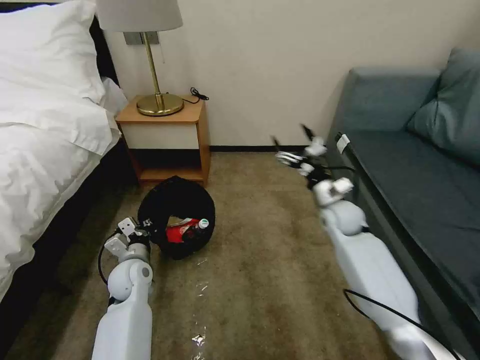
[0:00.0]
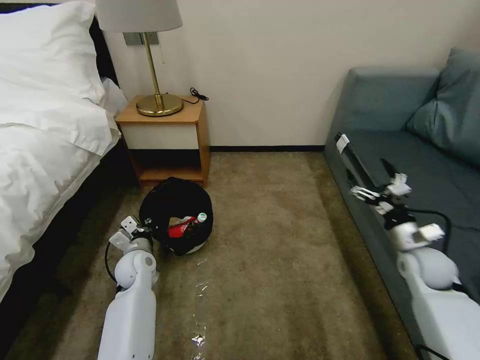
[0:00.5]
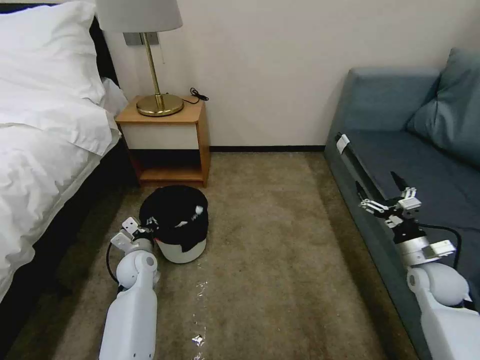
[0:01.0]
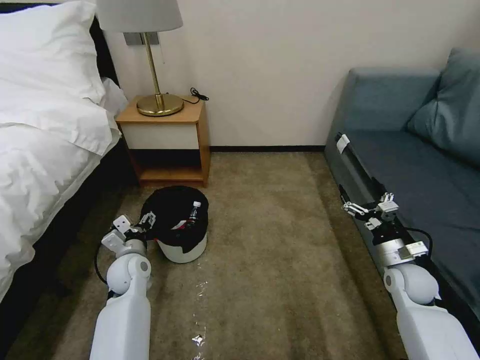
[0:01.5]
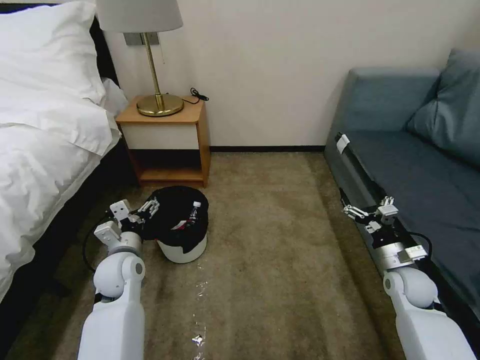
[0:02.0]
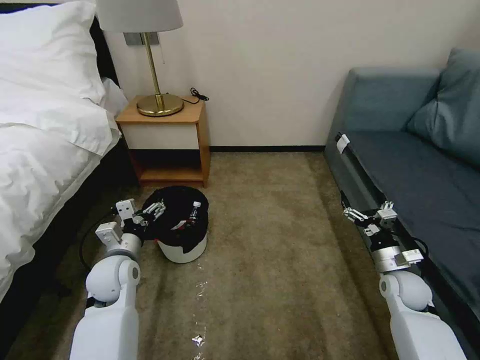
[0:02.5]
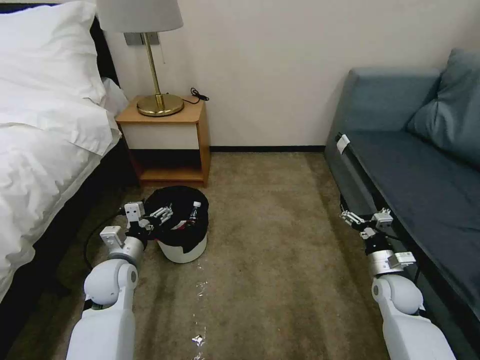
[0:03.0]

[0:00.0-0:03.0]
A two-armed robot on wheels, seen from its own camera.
Task of the whole recording: Pick up the trash bin, then pick up the garbage on the floor and place it into the trash bin.
0:00.0 to 0:01.5: The right gripper is displaced to the right, backward and downward by approximately 20 cm. The left gripper opens its fingers.
0:01.5 to 0:03.0: The left gripper shifts by approximately 5 cm.

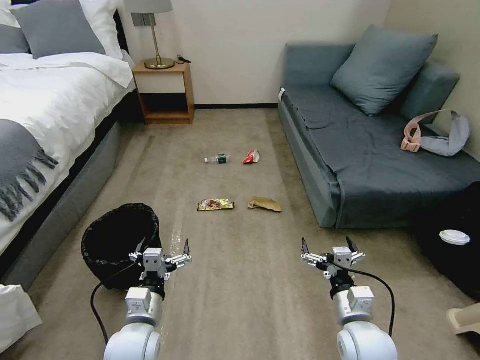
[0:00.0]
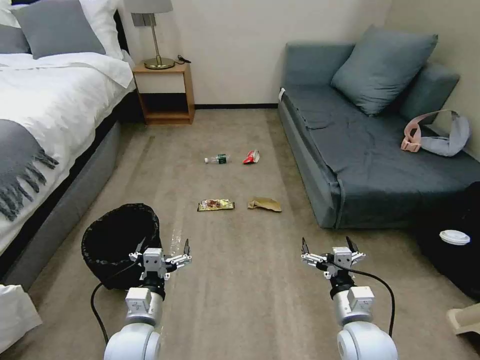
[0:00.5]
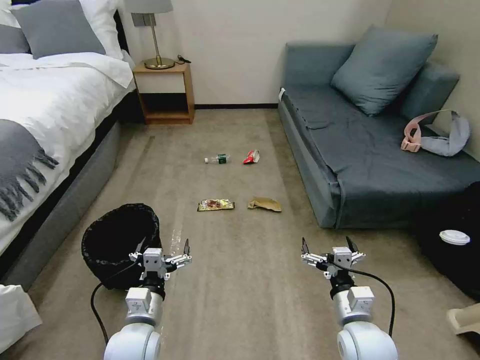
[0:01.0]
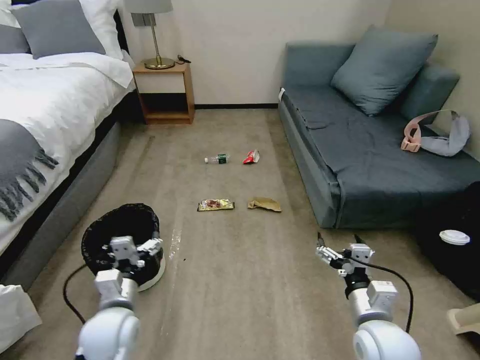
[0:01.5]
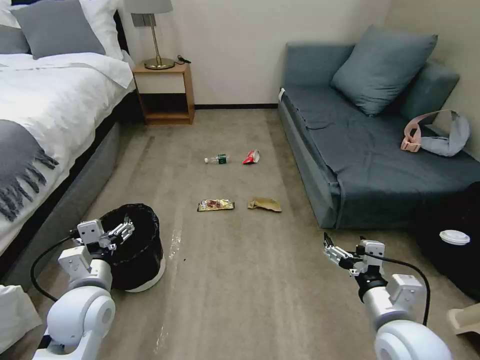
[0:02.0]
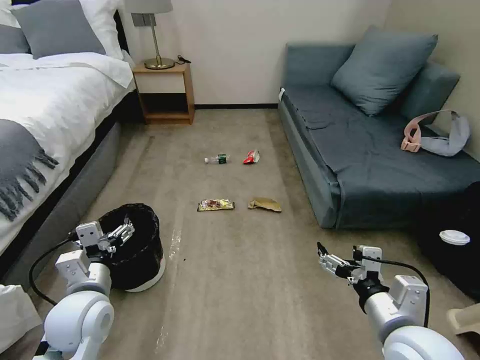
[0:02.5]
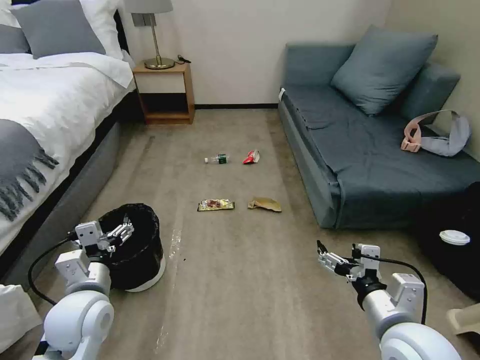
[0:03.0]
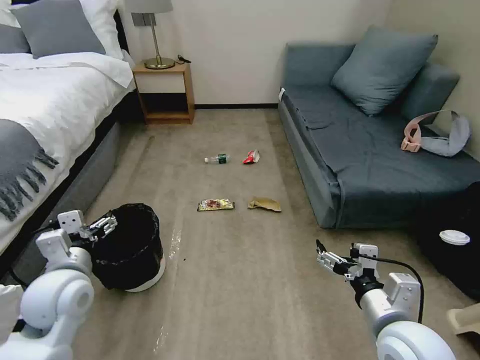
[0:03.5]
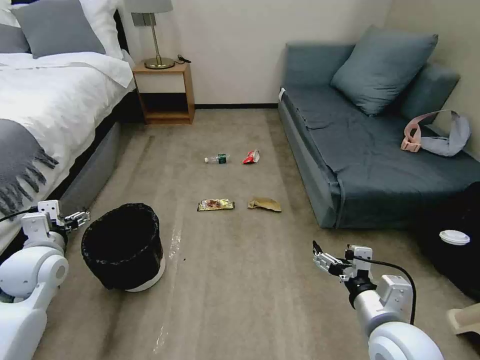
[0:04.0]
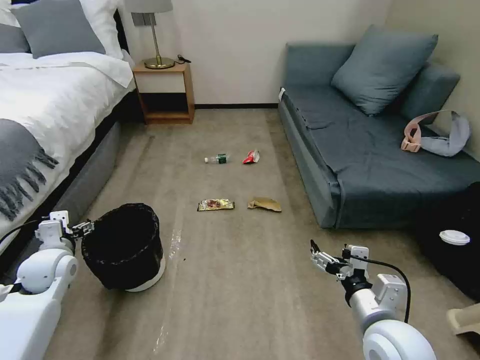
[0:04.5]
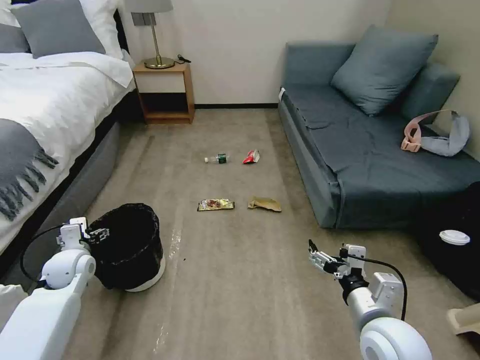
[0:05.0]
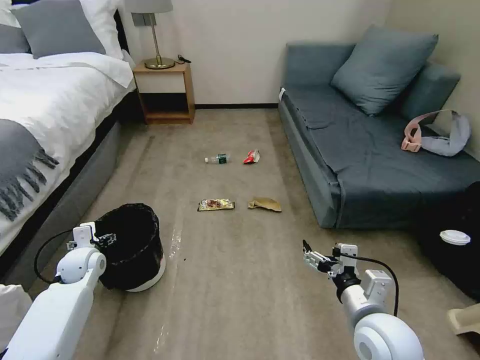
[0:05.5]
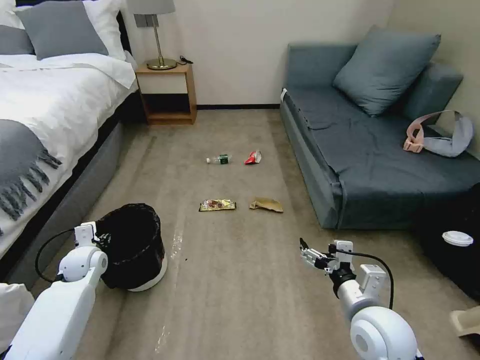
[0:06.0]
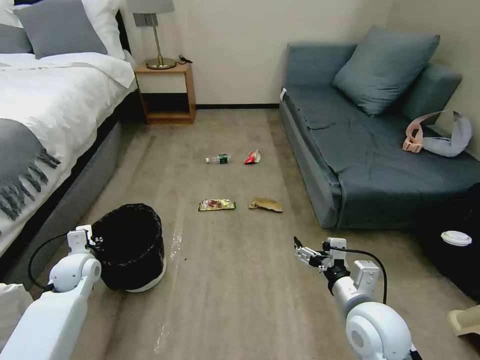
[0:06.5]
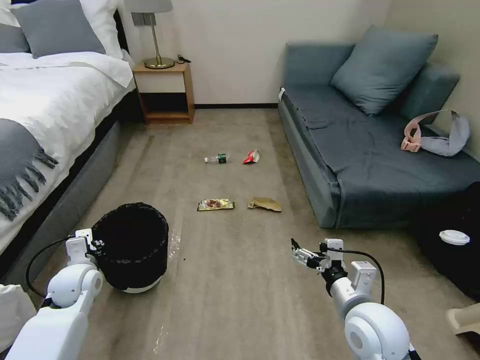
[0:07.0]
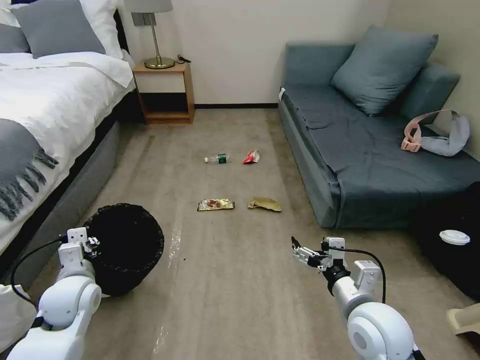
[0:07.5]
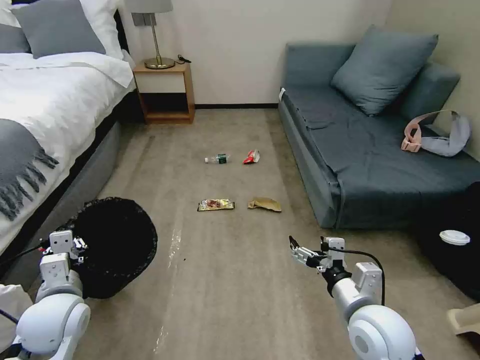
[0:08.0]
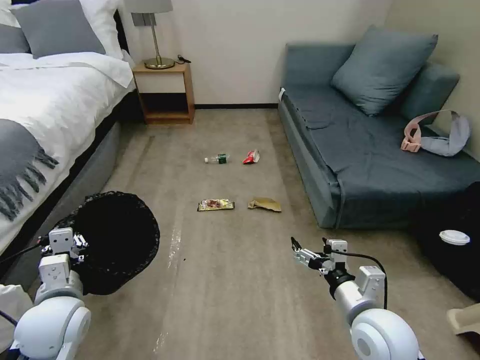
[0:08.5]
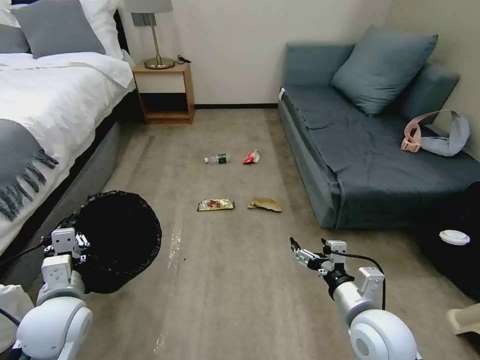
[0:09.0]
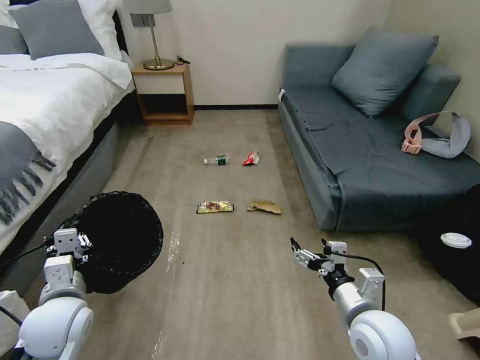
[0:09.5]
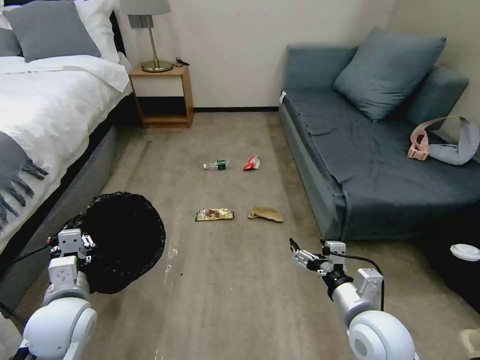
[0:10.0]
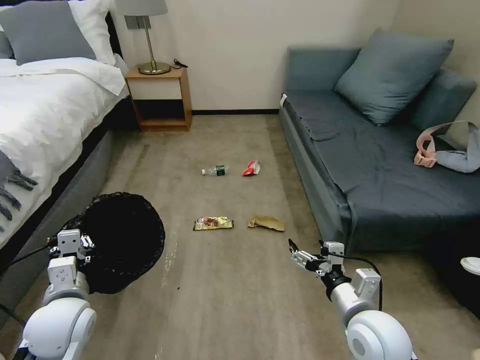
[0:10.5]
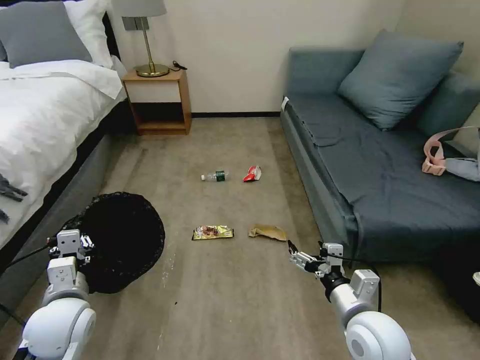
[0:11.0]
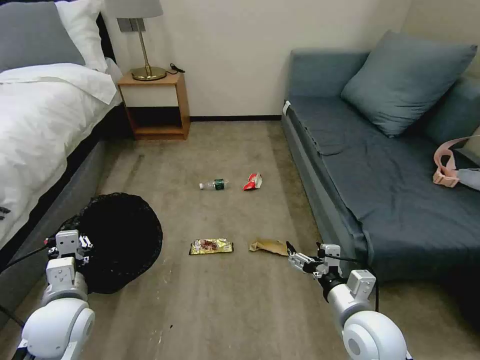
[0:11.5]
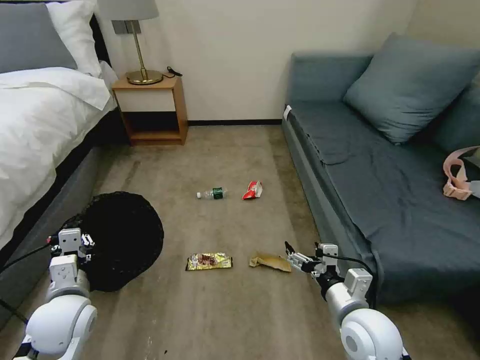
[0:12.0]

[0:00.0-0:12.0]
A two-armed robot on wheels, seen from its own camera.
Task of the whole recording: Pick up the trash bin, then pick up the garbage on the floor and place it into the trash bin.
0:02.0 to 0:04.0: The left gripper is displaced to the left and forward by about 15 cm.
0:04.0 to 0:06.0: The left gripper shifts about 15 cm downward and forward, and closes its fingers.
0:06.0 to 0:08.0: The left gripper heads backward, upward and to the right, covering approximately 20 cm, and closes up.

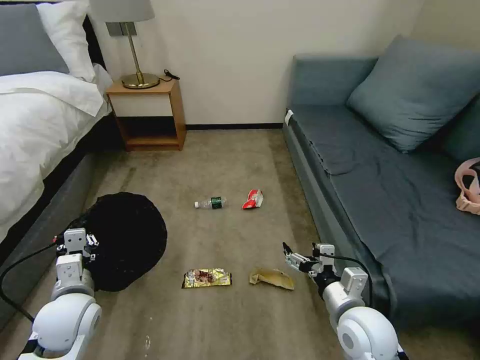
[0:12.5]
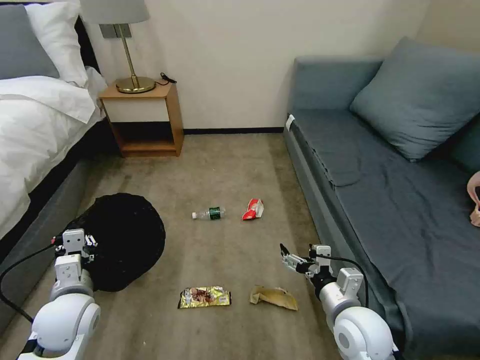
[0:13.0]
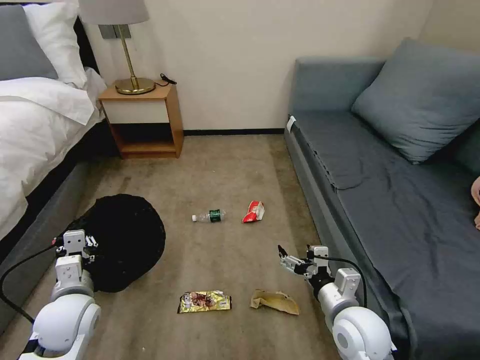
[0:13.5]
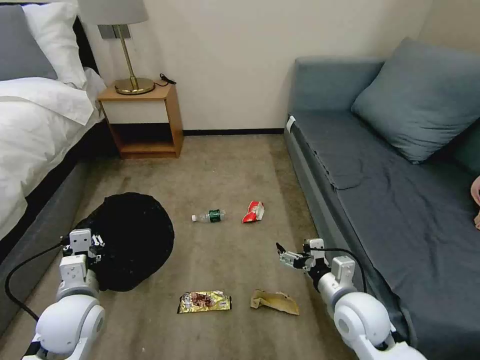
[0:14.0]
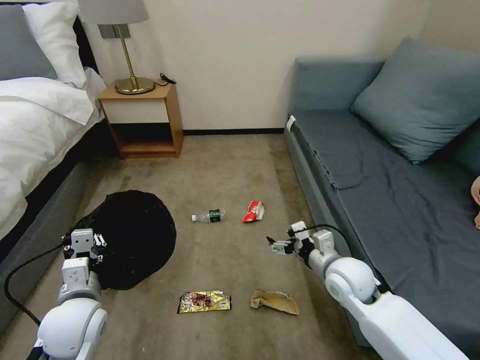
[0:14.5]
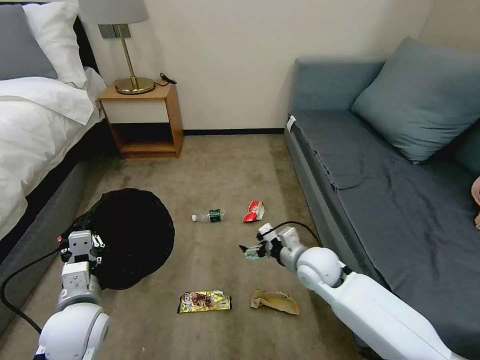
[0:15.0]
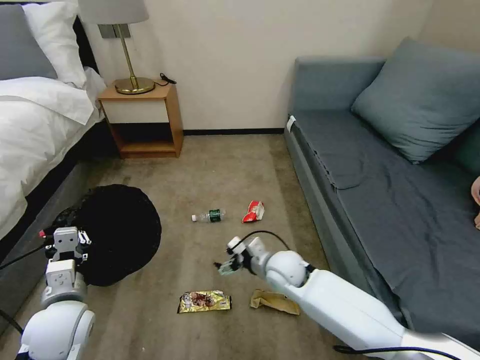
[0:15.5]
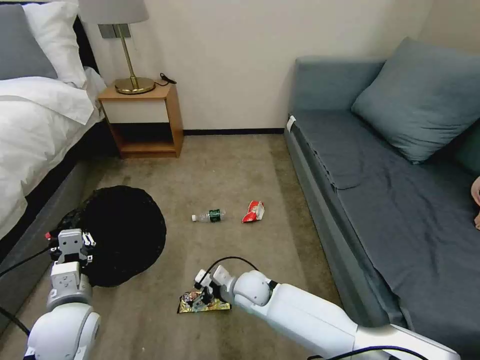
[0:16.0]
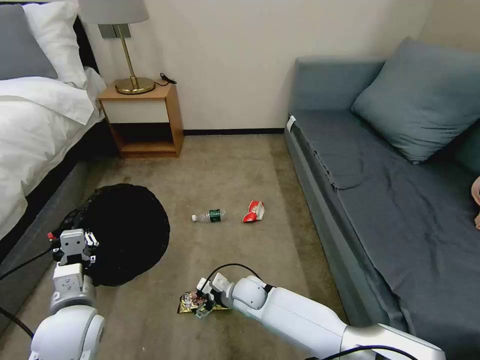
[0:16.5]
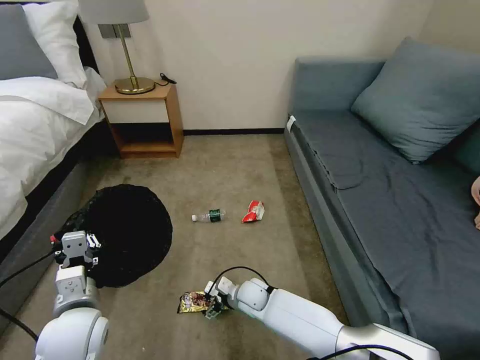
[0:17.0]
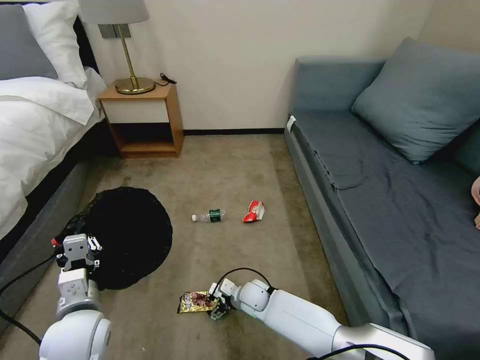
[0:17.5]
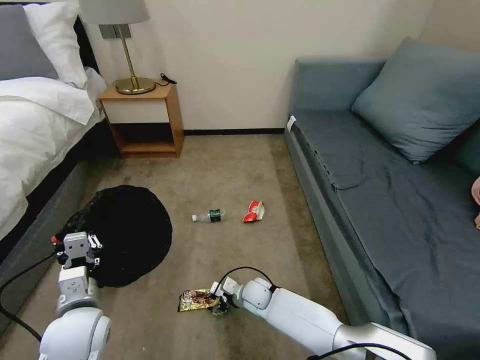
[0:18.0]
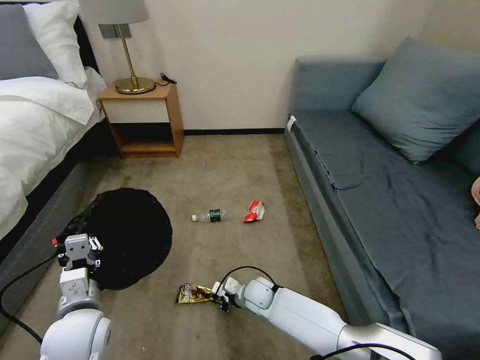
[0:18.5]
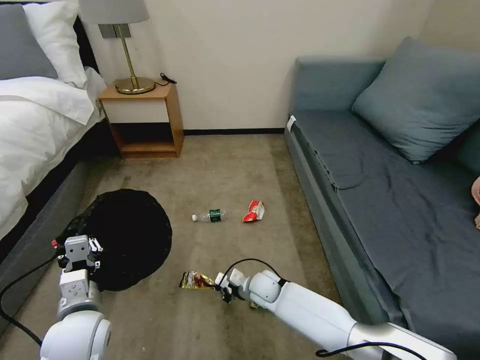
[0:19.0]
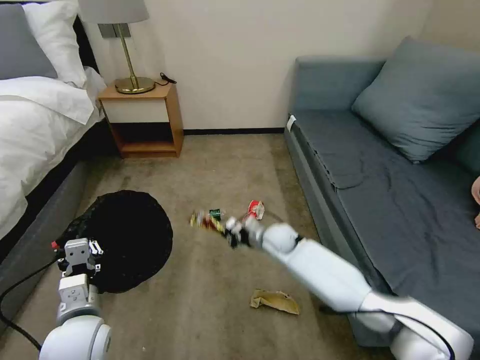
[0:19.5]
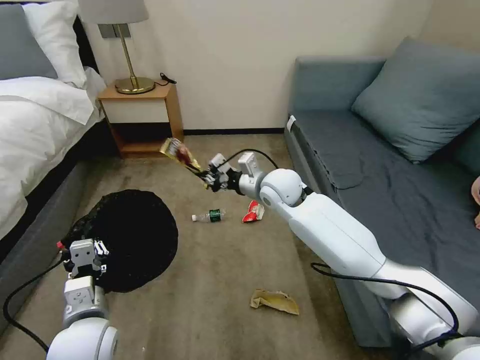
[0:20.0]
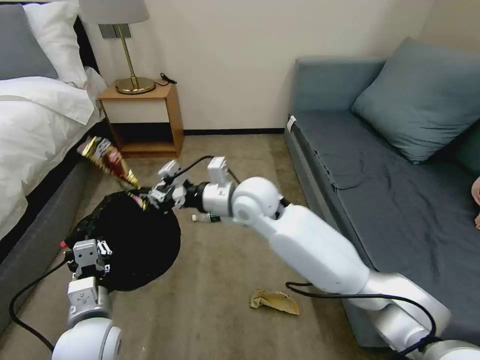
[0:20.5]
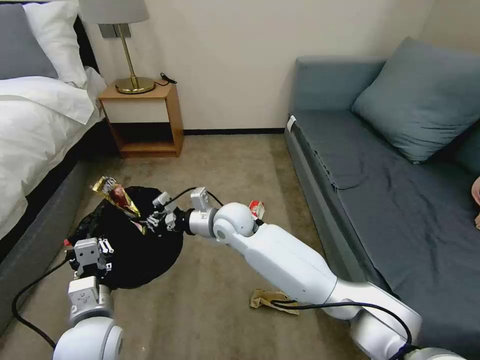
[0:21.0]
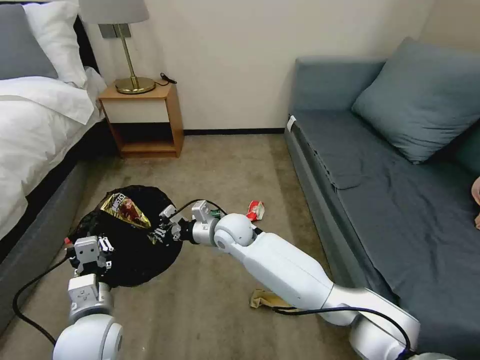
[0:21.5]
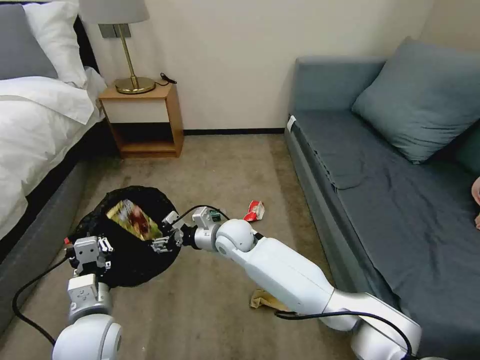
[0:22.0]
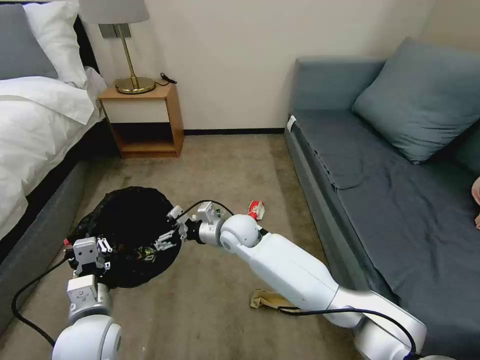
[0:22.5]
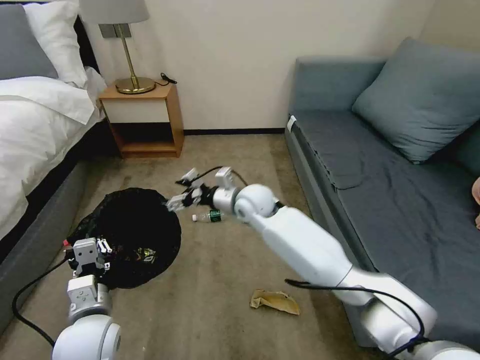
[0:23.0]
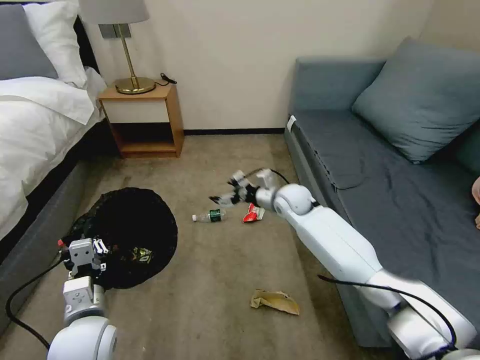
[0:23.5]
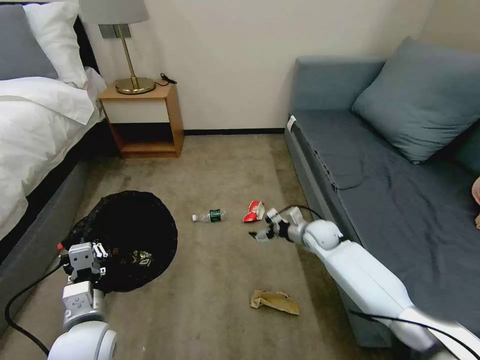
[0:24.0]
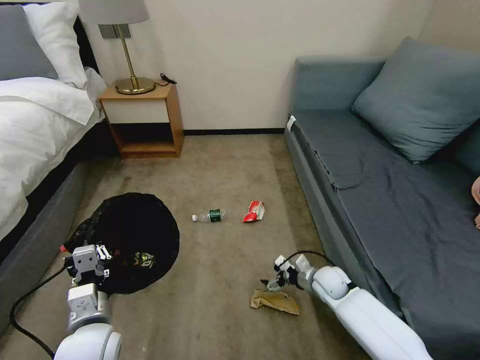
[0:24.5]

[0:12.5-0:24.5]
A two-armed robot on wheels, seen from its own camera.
Task of the whole recording: Pick up the trash bin, then pick up the garbage on the floor and place it into the trash bin.
0:12.5 to 0:14.5: The right gripper goes about 10 cm forward.
0:14.5 to 0:16.5: The right gripper is displaced to the left and downward by some 25 cm.
0:16.5 to 0:18.5: The right gripper ends up roughly 5 cm from where it was, and closes up.
0:18.5 to 0:20.5: The right gripper heads upward, covering about 35 cm.
0:20.5 to 0:22.5: The right gripper shifts about 15 cm downward, and opens.
0:22.5 to 0:24.5: The right gripper travels to the right and downward by some 30 cm.
